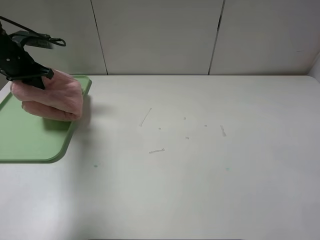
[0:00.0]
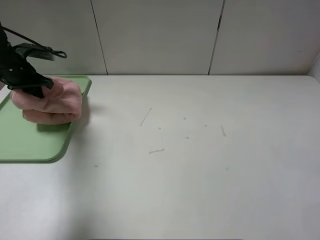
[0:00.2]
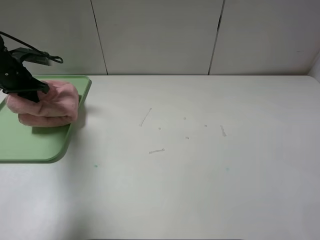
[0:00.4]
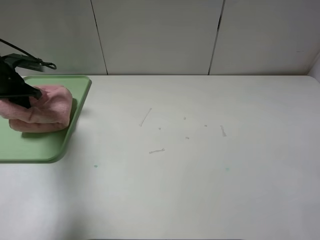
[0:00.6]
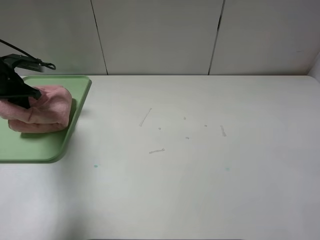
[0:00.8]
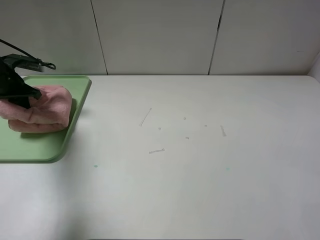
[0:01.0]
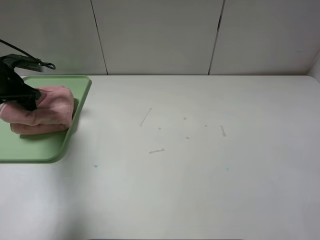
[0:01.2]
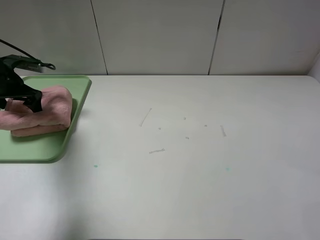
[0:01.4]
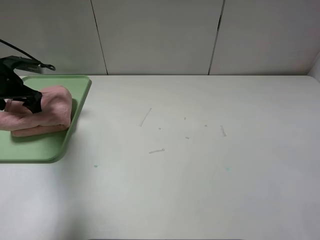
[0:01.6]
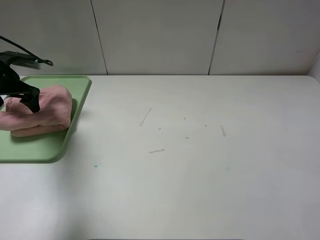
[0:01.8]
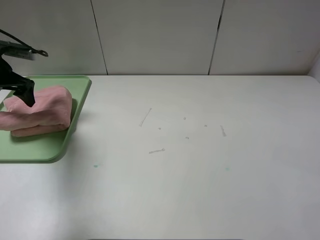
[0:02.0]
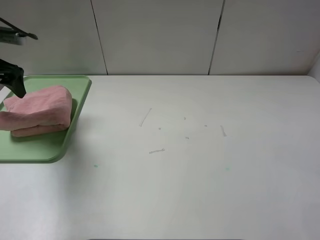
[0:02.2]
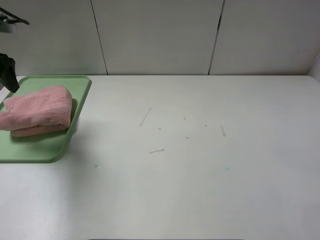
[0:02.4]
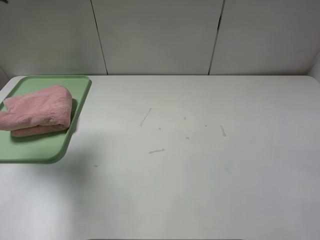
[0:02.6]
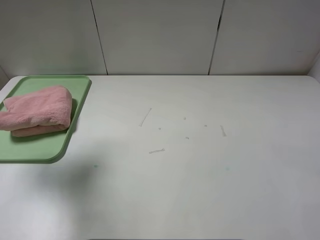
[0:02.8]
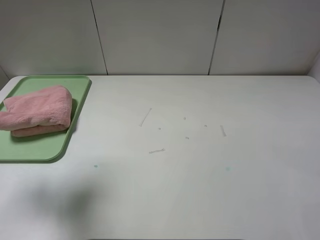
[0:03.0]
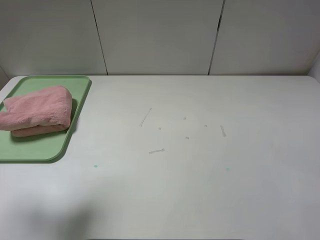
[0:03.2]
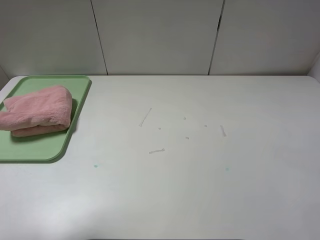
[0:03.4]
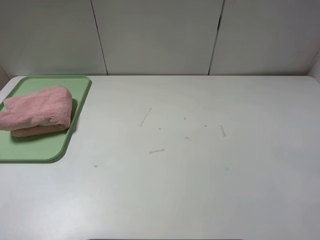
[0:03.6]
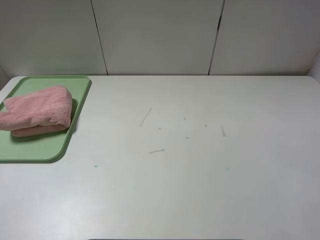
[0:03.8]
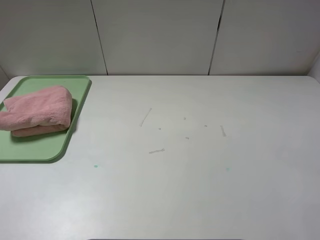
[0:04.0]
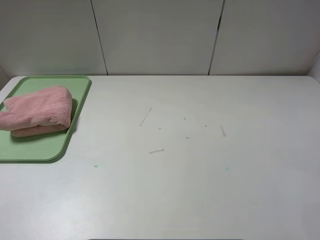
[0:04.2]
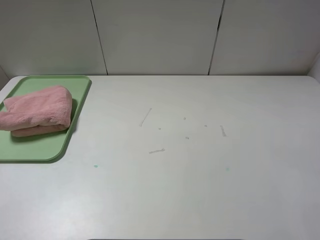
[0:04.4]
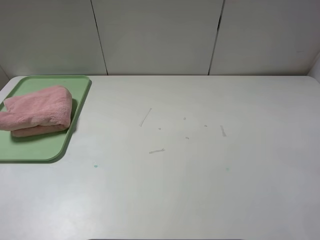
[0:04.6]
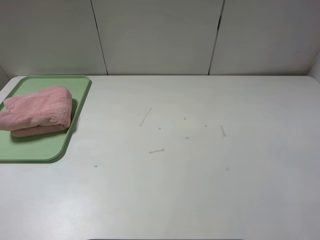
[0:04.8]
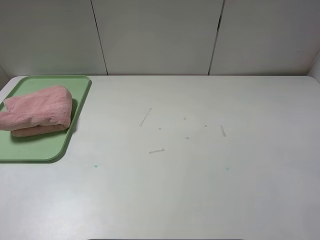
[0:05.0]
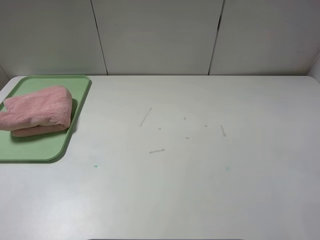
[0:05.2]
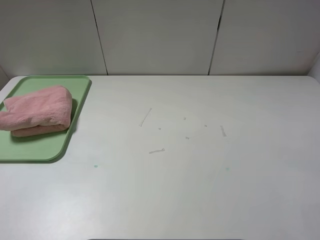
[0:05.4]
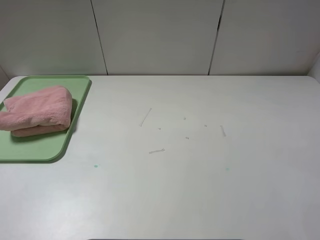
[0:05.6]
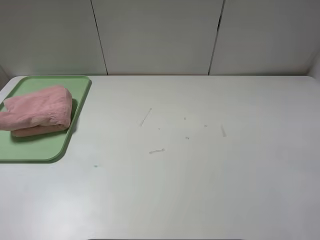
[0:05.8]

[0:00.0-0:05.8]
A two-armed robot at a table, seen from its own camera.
Step, 0:00.0 to 0:02.0: Place the folded pink towel on the tray with the left gripper.
0:00.0 to 0:01.4: The left gripper ends up some 5 cm from where it was, and opens up.
0:01.4 to 0:02.8: The left gripper goes about 25 cm upward and backward.
0:02.8 to 0:04.4: The left gripper is displaced backward by about 25 cm.
